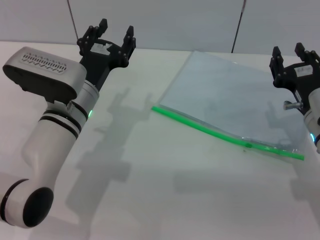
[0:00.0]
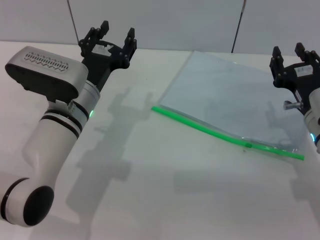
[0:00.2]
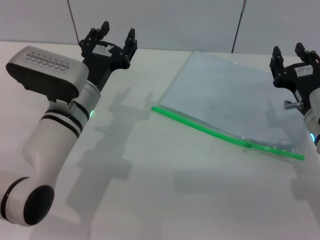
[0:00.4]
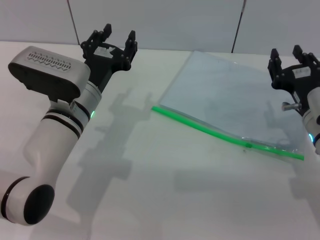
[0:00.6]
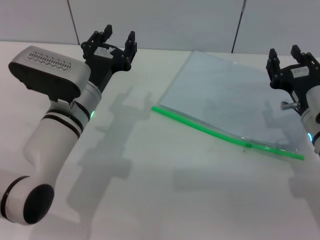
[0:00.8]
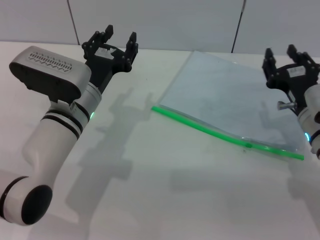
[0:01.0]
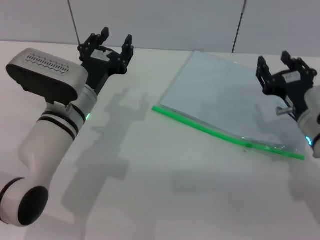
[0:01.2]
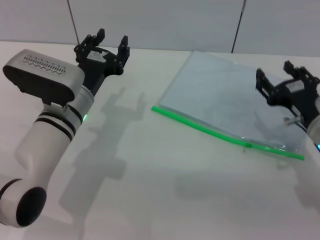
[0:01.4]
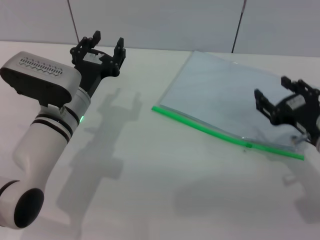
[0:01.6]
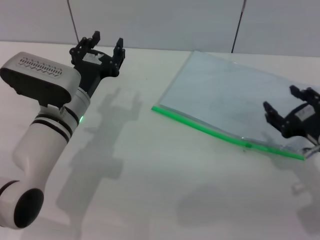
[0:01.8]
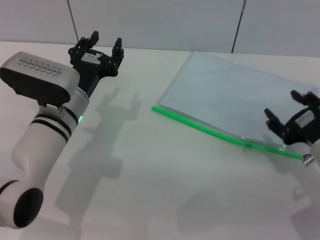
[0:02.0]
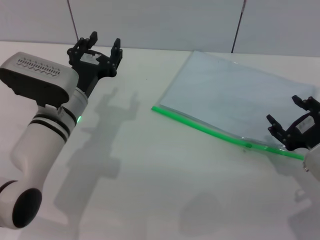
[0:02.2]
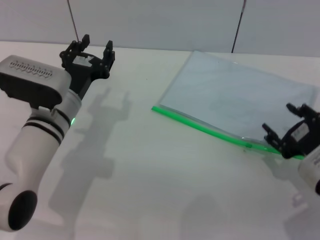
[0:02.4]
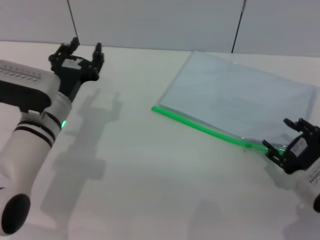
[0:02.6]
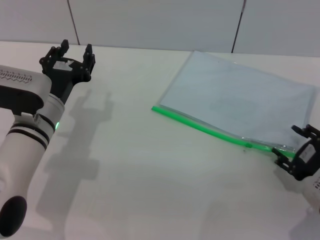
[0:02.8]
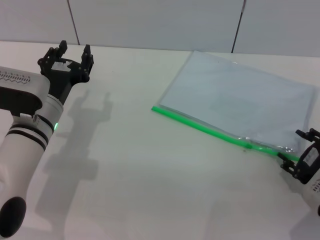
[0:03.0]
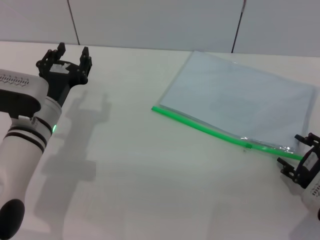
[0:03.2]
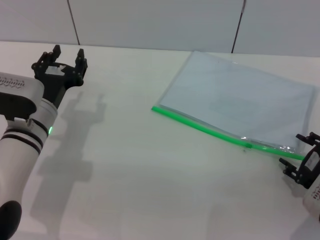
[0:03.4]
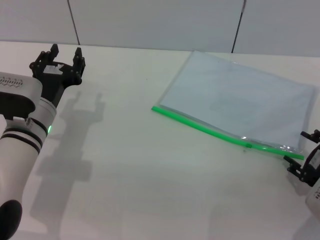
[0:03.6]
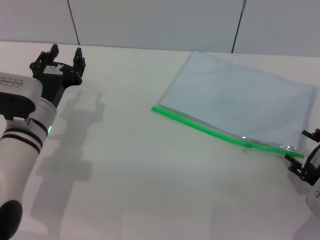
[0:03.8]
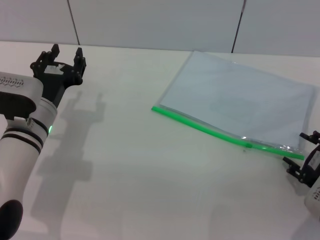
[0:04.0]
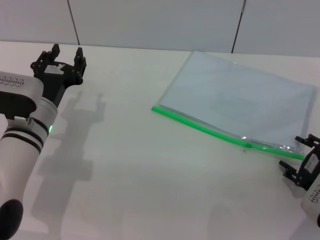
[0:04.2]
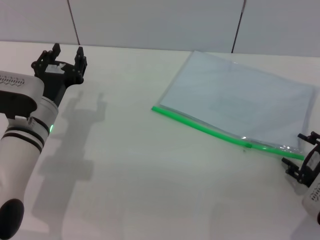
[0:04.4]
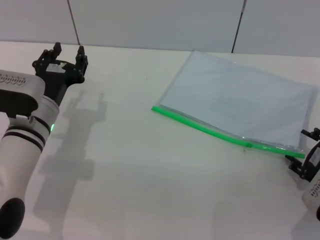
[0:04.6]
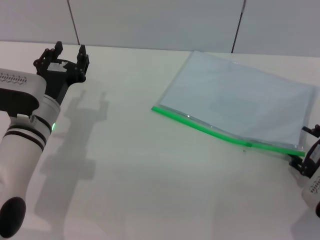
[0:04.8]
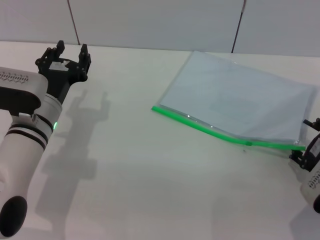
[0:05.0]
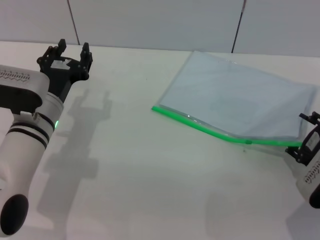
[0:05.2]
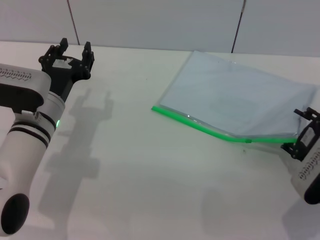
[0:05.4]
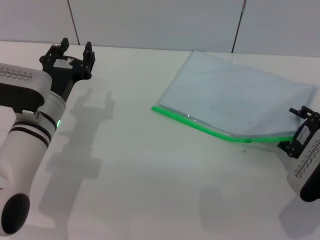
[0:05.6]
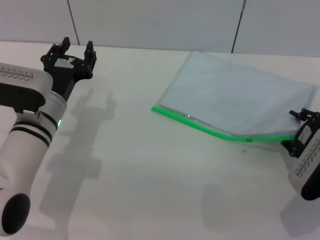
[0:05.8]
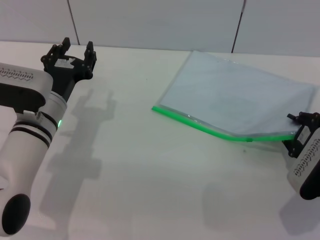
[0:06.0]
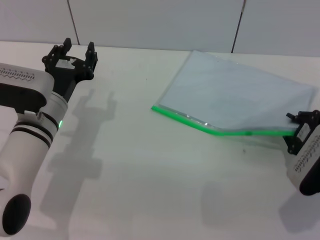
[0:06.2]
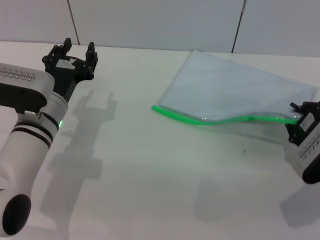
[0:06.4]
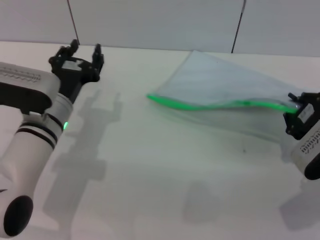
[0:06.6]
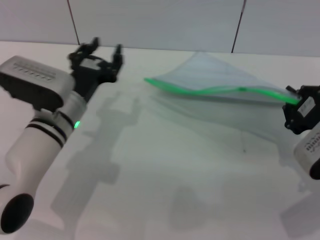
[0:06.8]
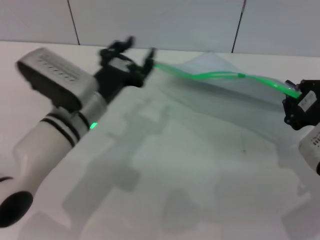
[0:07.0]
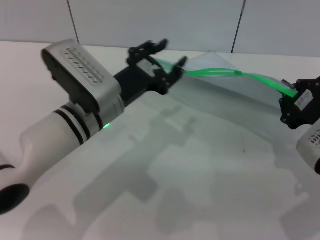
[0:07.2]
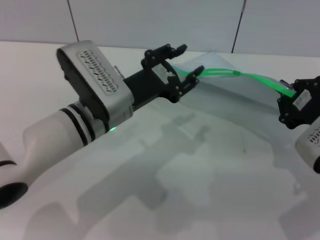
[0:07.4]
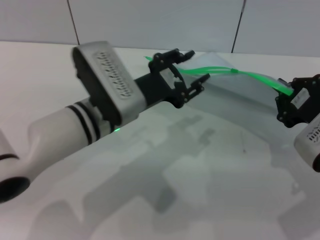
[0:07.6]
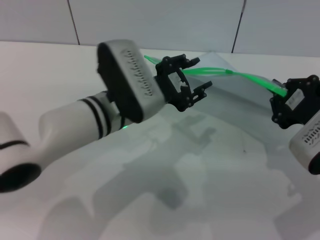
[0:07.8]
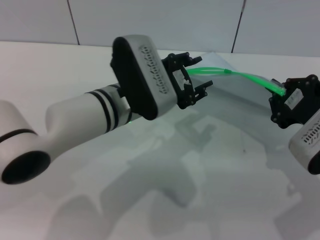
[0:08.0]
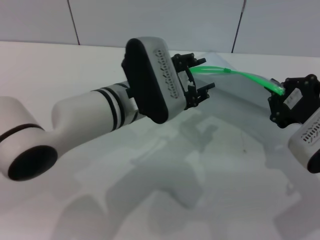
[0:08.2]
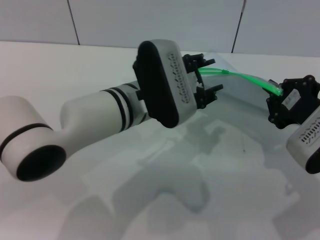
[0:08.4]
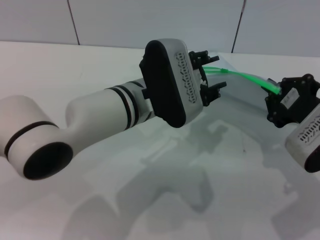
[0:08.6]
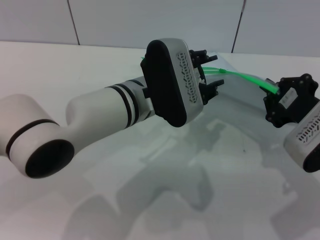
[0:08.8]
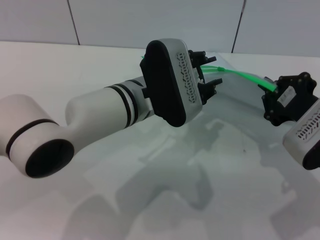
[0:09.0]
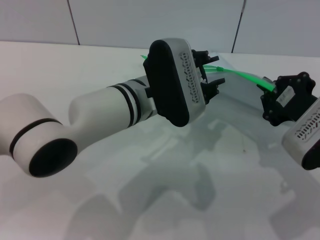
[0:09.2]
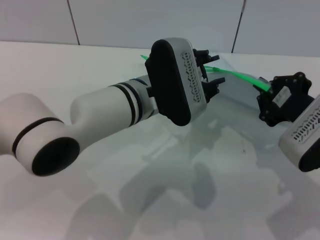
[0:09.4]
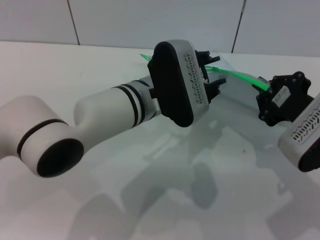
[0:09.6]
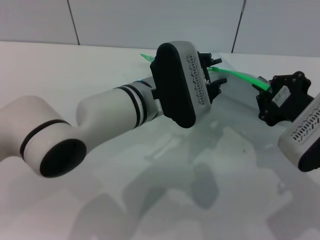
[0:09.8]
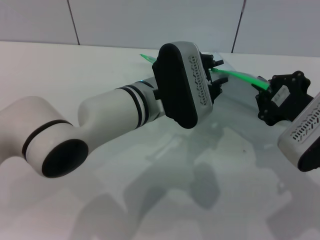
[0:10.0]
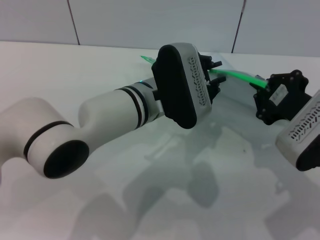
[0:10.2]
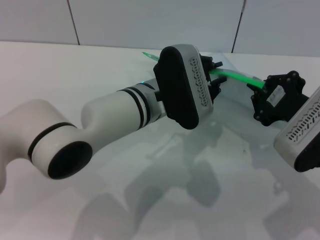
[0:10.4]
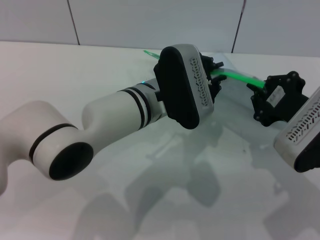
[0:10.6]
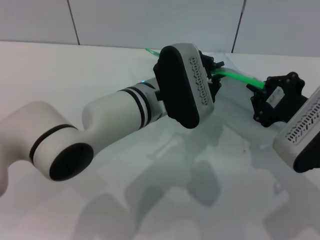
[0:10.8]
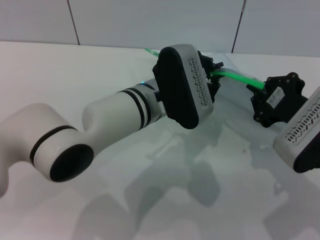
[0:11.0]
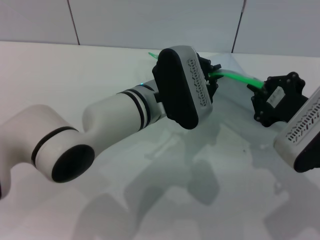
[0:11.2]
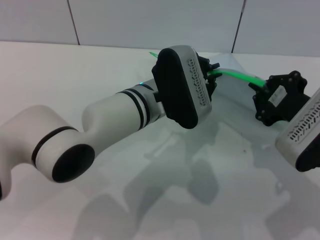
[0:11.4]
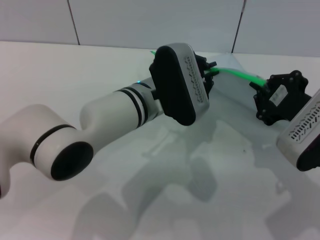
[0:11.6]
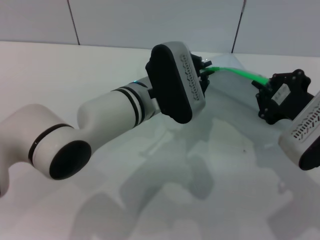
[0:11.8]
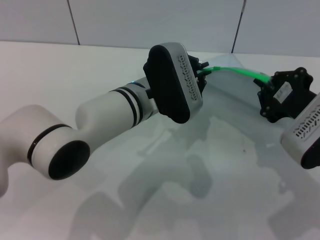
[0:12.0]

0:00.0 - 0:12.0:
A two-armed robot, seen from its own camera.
Step, 0:00.0 - 0:07.0: Pick up the transparent plastic bag with the right gripper.
0:01.6 - 0:03.0: The right gripper moves about 5 cm.
0:03.0 - 0:04.4: The grippers move only a little.
0:04.4 - 0:06.0: The right gripper closes.
0:06.0 - 0:07.6: The left gripper shifts roughly 10 cm to the right and upward, while the right gripper goes about 5 cm upward, and closes up.
0:07.6 - 0:09.0: The left gripper moves approximately 5 cm.
0:09.0 - 0:10.4: The left gripper closes its fingers.
0:10.4 - 0:12.0: The left gripper closes.

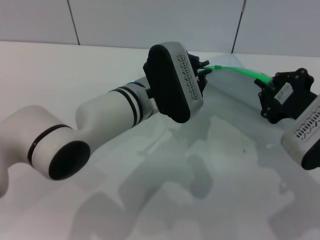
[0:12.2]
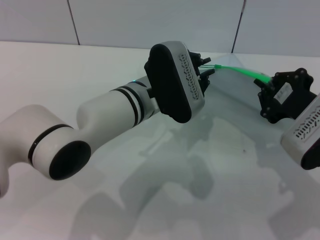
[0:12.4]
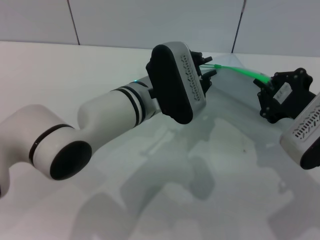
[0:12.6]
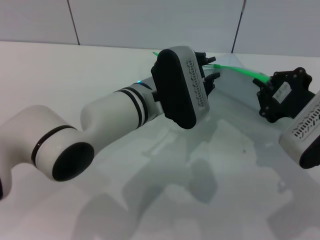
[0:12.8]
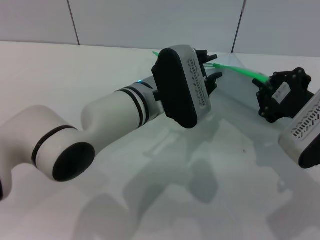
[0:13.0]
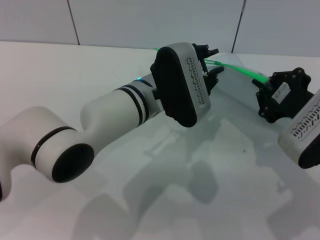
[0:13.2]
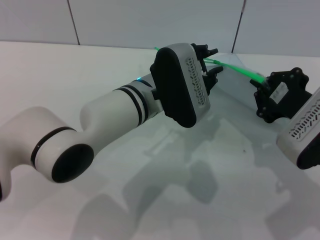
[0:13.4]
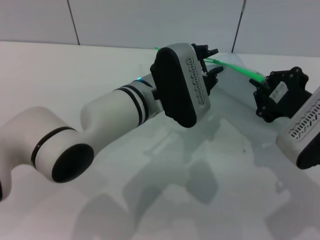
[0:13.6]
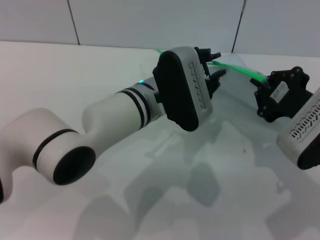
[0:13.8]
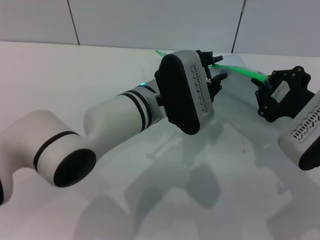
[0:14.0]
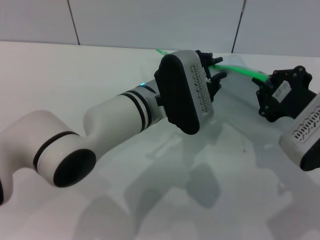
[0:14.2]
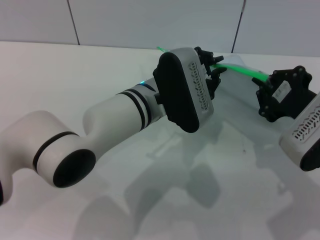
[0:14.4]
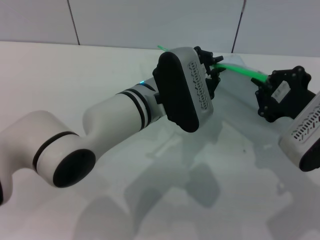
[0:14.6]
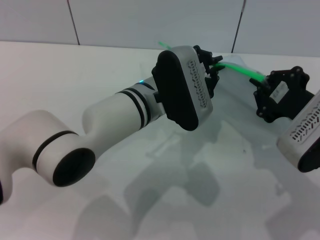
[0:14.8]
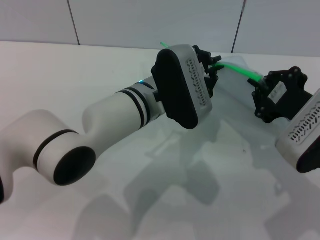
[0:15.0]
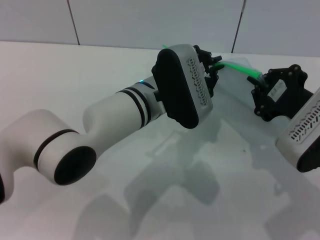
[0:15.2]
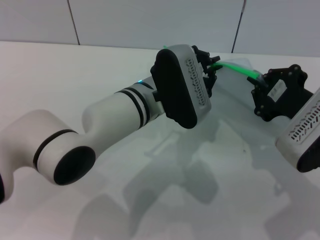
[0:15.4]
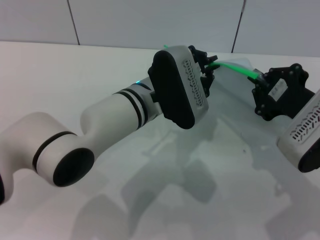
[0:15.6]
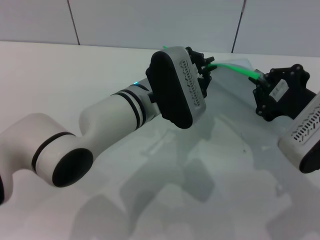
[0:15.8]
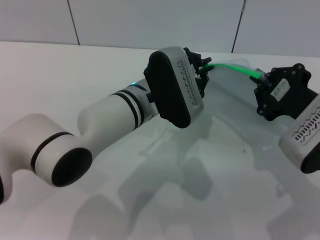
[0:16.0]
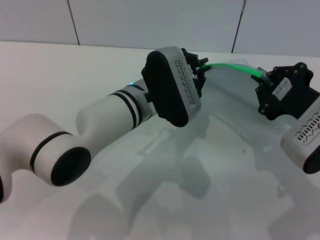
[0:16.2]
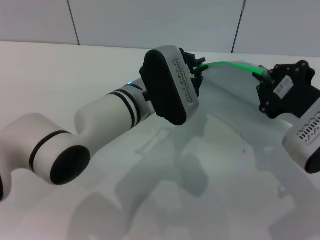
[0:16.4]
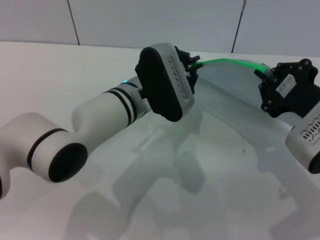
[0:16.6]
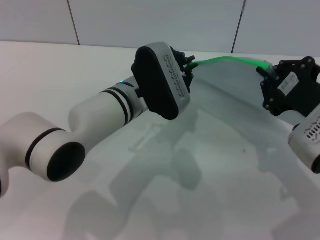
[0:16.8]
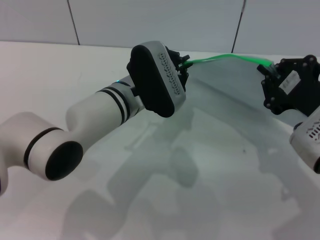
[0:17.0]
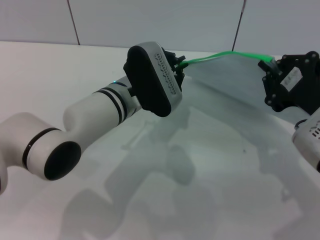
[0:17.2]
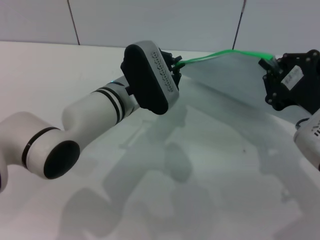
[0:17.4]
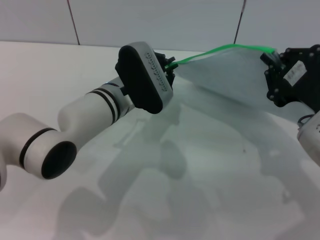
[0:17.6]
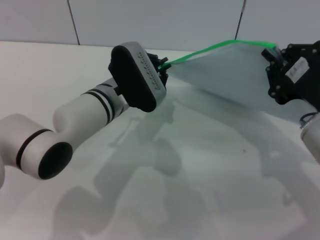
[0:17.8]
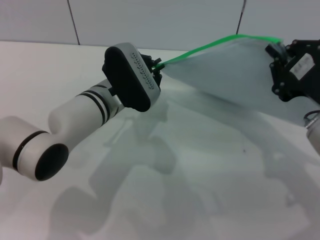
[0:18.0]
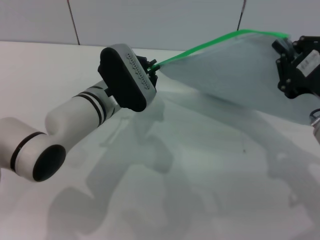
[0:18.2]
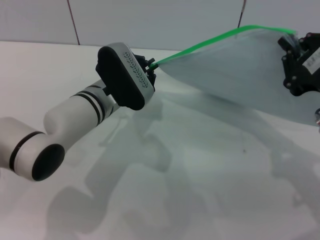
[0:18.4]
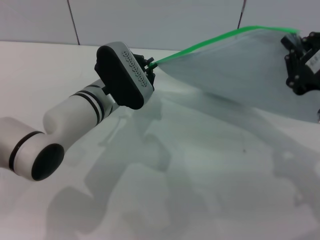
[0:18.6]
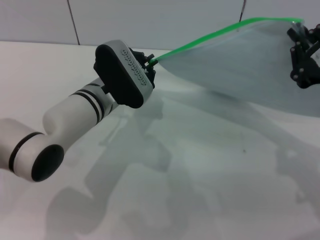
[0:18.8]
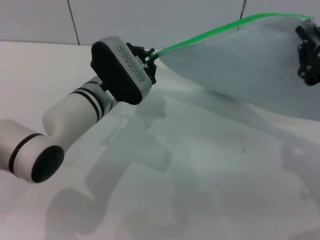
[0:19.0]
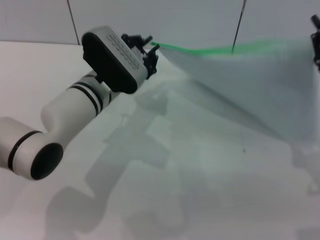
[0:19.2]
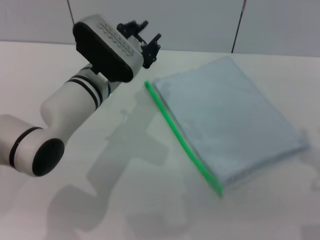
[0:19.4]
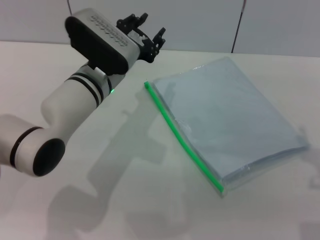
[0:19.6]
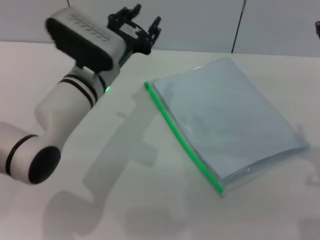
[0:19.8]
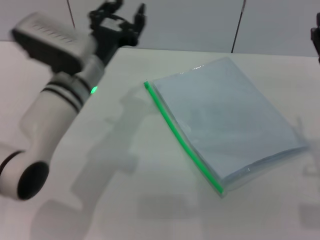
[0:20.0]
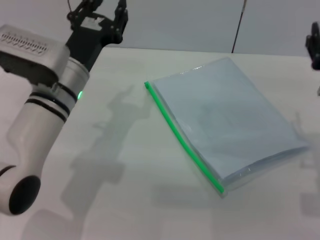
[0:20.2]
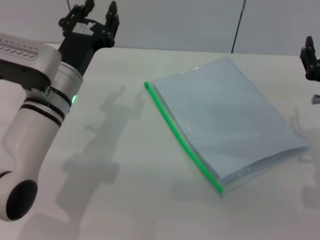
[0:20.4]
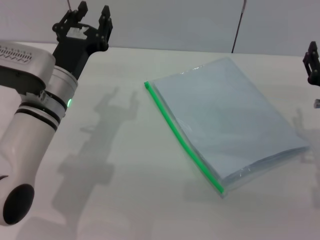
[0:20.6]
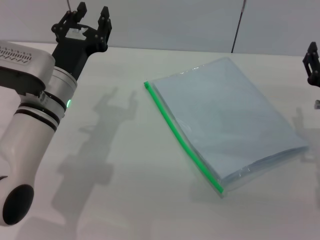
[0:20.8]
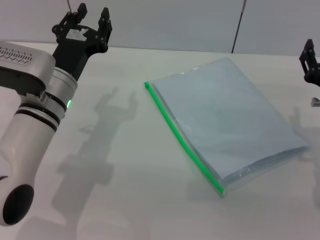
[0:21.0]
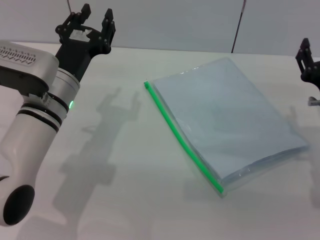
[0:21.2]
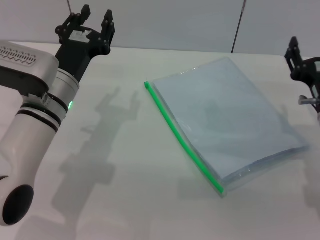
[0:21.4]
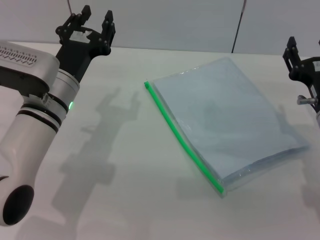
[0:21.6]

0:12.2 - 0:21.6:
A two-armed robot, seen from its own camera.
Step, 0:12.2 - 0:19.0: Pulling up the zipper on the transparent plastic bag with the left gripper to close it.
Step, 0:19.2 - 0:19.8: Place the transparent plastic bag.
0:12.2 - 0:13.8: The left gripper opens up.
0:13.8 - 0:15.4: The left gripper closes.
0:17.0 - 0:18.4: The left gripper shifts by about 5 cm.
0:18.4 - 0:20.0: The right gripper shifts by some 5 cm, and opens up. Meanwhile the left gripper opens.
0:20.0 - 0:21.6: The right gripper is displaced downward by some 10 cm.

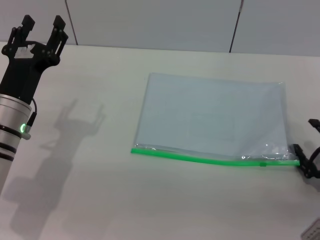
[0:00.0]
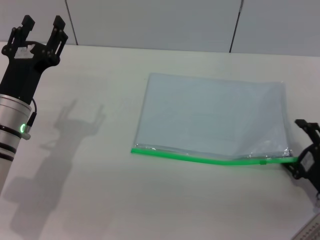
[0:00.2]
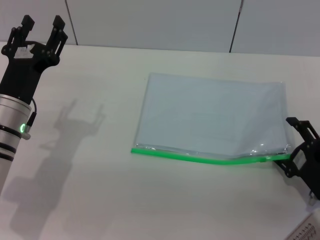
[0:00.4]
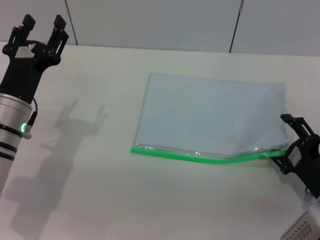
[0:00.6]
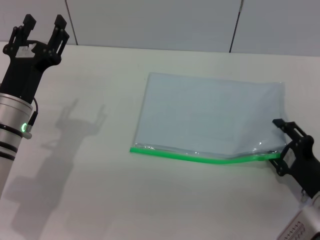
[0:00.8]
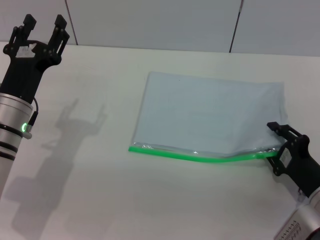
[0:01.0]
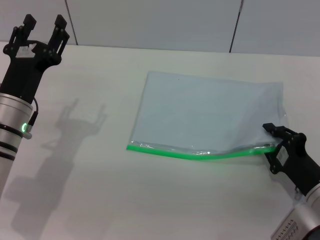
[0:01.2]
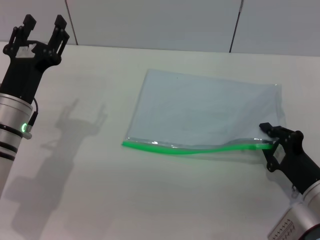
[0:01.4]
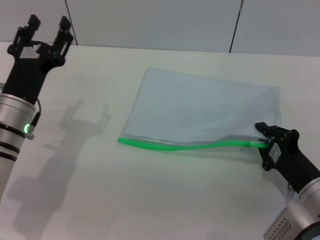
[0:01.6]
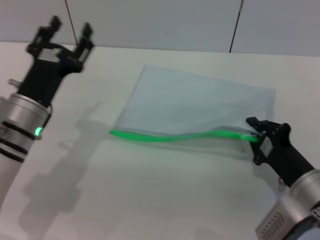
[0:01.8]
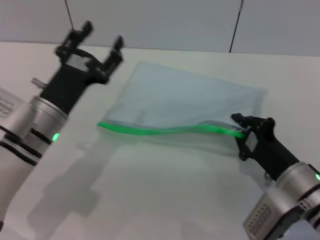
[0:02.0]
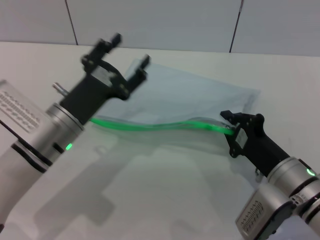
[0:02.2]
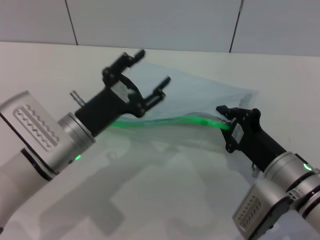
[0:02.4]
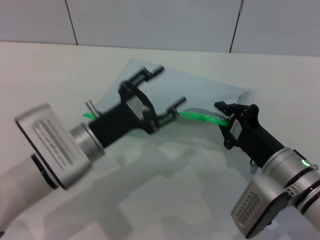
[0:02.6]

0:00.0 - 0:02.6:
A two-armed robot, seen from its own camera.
Step, 0:00.0 - 0:02.4: Pick up the transparent plastic bag with the right gripper.
0:00.0 - 0:01.2: The right gripper closes its fingers.
0:01.2 - 0:02.6: The right gripper is displaced to the left by about 5 cm, and closes its fingers. The left gripper shifts some 10 cm to the right.
